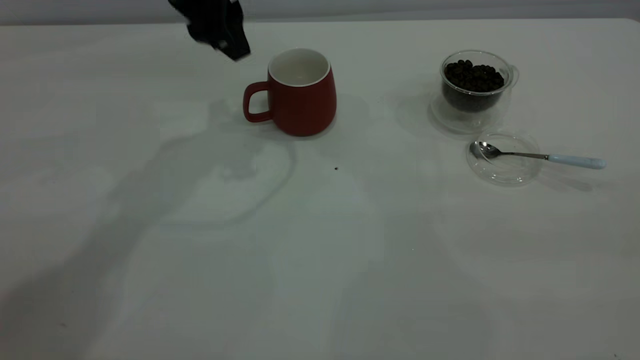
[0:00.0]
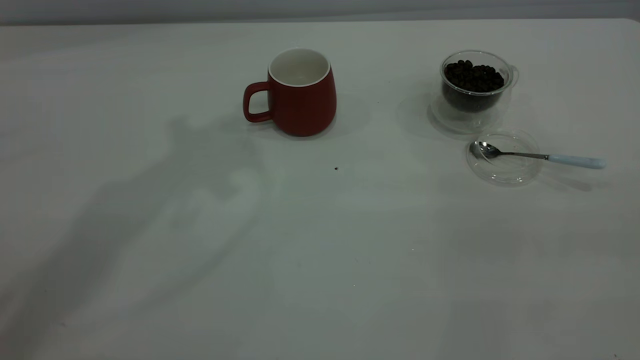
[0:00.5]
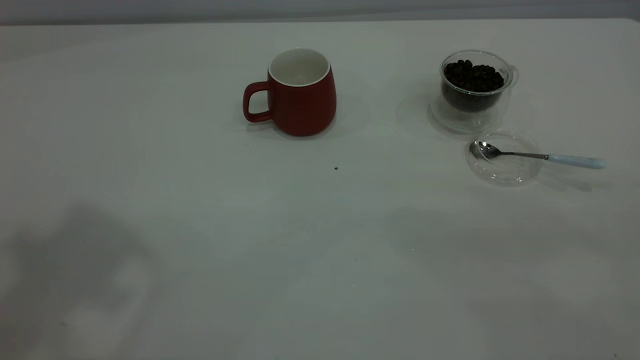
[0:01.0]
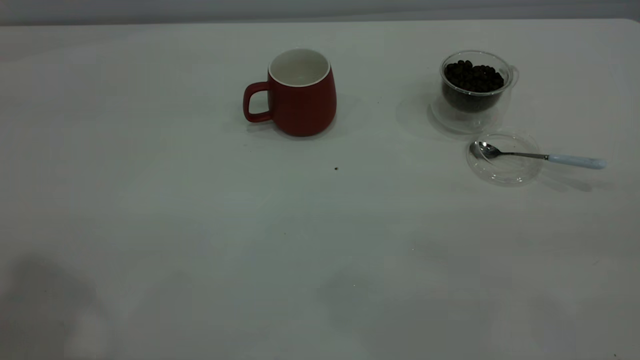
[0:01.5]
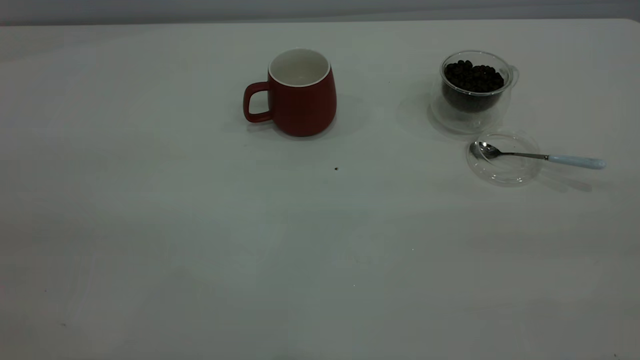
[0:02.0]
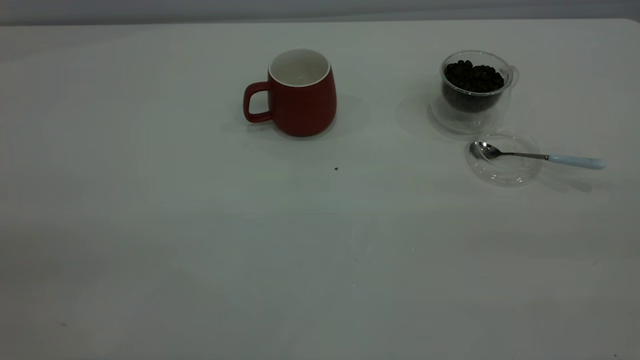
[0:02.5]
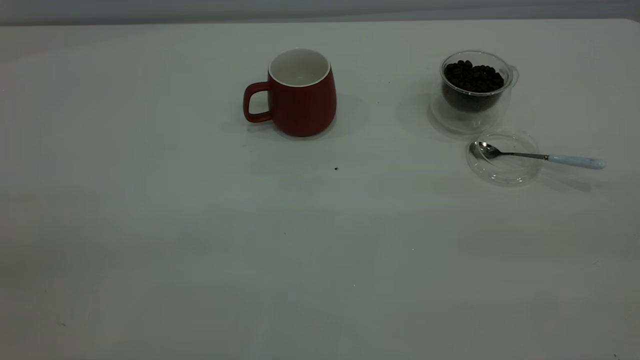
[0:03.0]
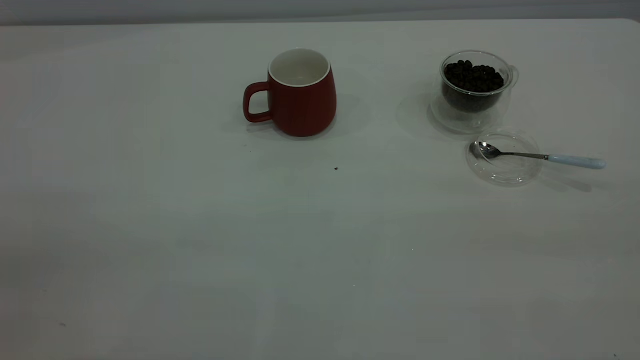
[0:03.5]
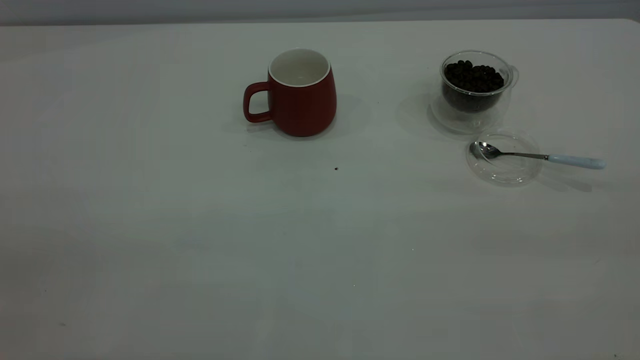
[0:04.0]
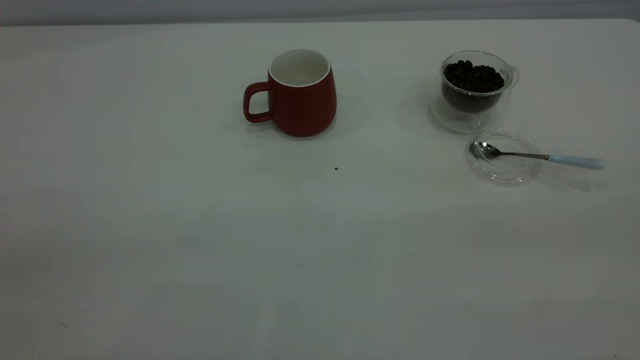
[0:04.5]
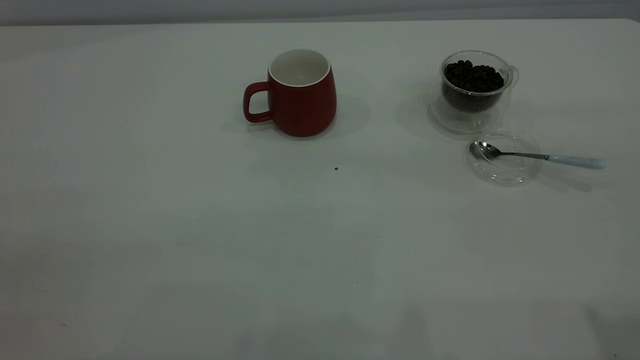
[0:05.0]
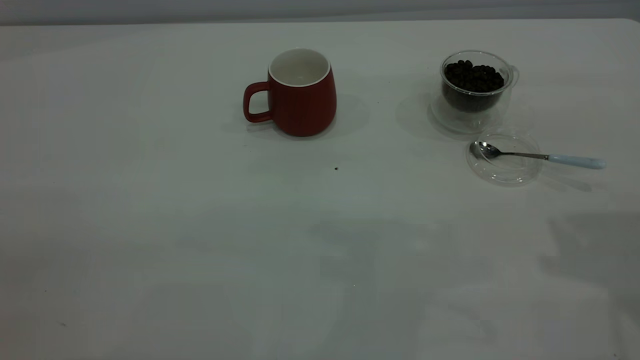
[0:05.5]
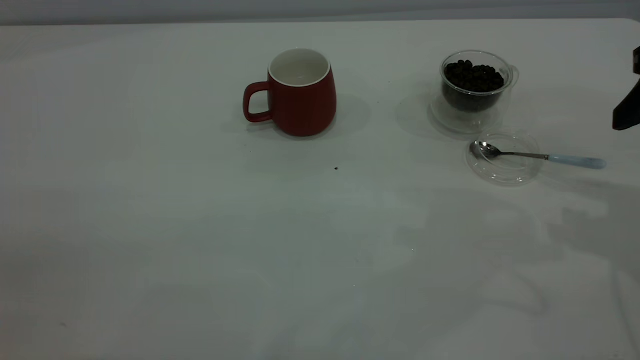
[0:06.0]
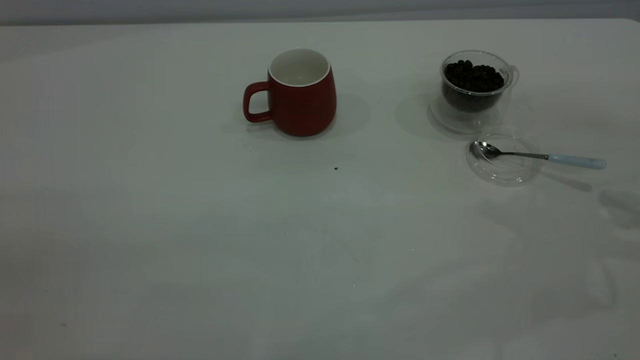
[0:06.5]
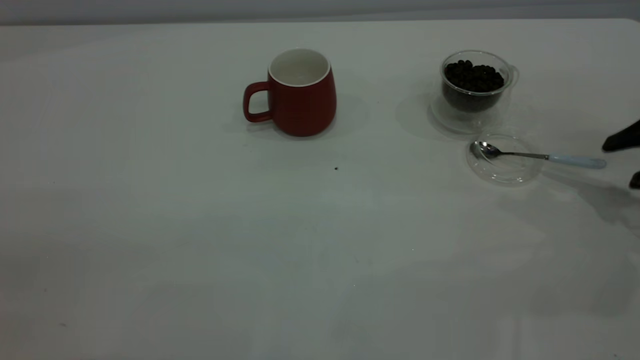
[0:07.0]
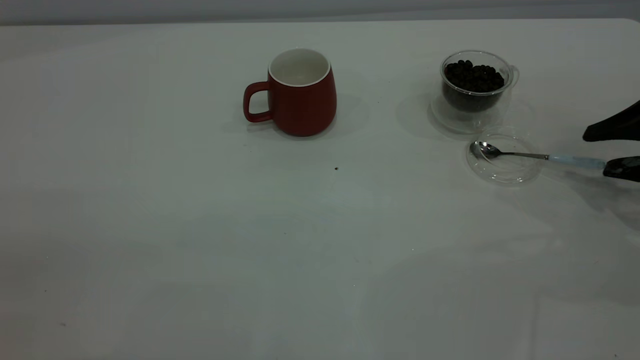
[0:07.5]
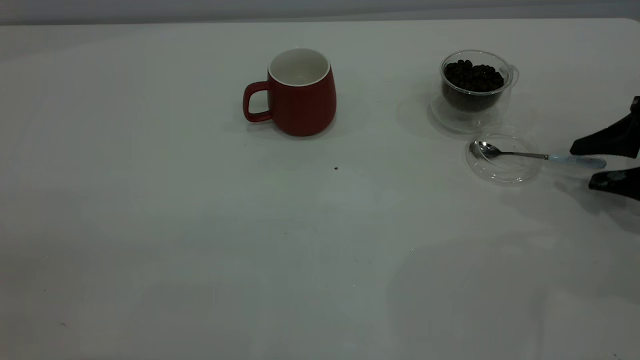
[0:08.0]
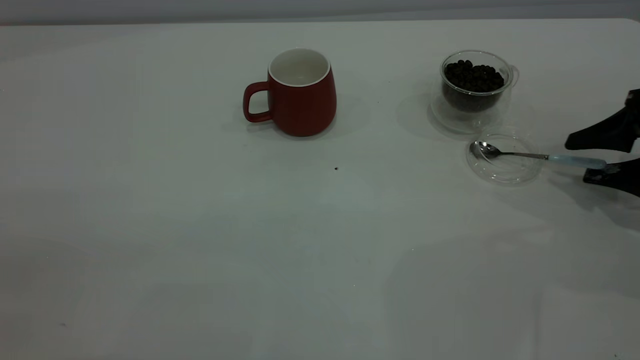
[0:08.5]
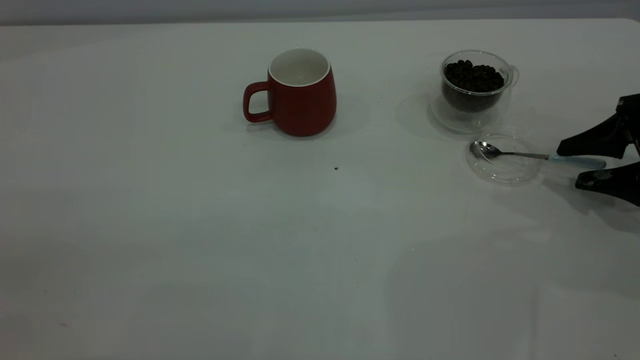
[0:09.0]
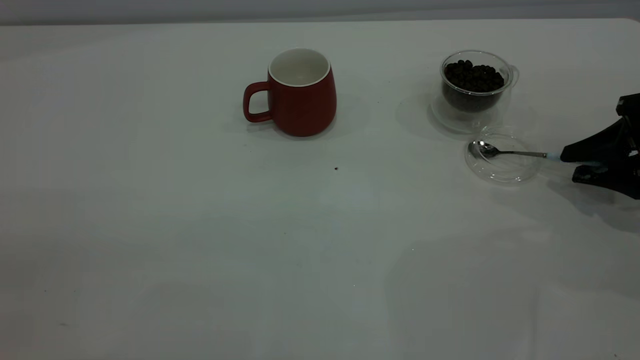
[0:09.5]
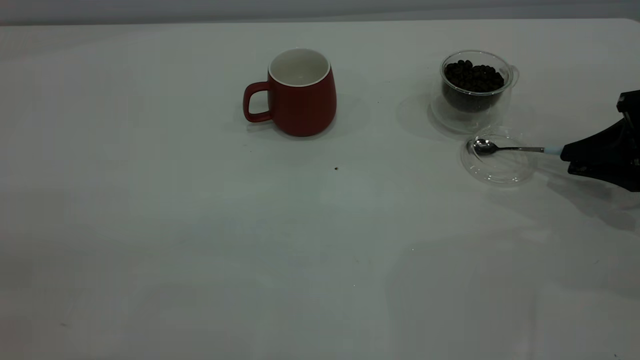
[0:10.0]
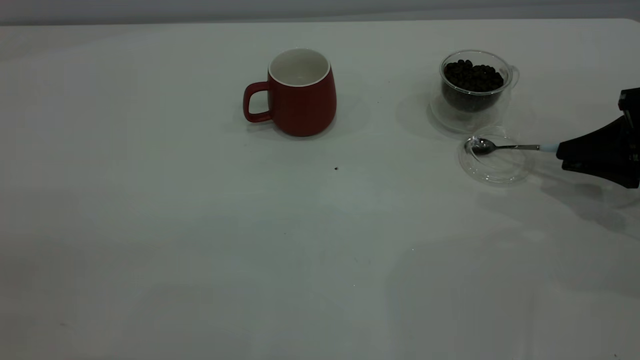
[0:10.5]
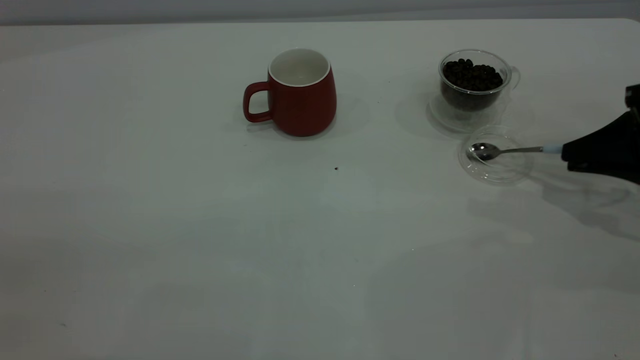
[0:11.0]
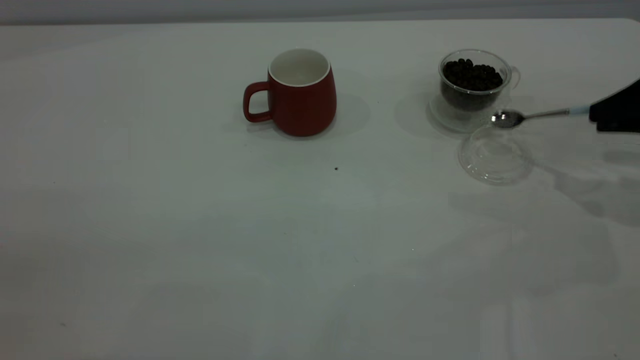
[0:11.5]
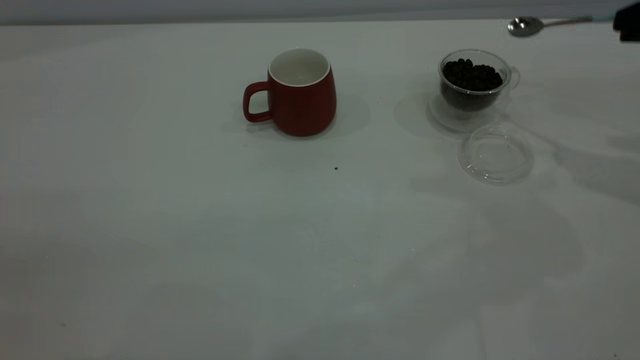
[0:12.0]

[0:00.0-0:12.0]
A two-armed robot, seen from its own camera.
Task of the whole recording: the left gripper place the red cup in the center of the table, the right gripper take the blue spoon from the cup lid and scoop out the coffee beans from the coffee cup and put them into the red cup, the right gripper put the spoon back into the cup lid.
Step, 0:00.0 to 0:11.0: Pick up the spoon.
0:00.0 to 0:02.0: The left gripper heads backward and to the left, covering roughly 40 cm.
0:06.0 to 0:08.0: The right gripper moves downward and to the right, some 15 cm.
0:08.0 to 0:10.0: The right gripper closes.
0:10.0 to 0:12.0: The right gripper goes some 15 cm upward.

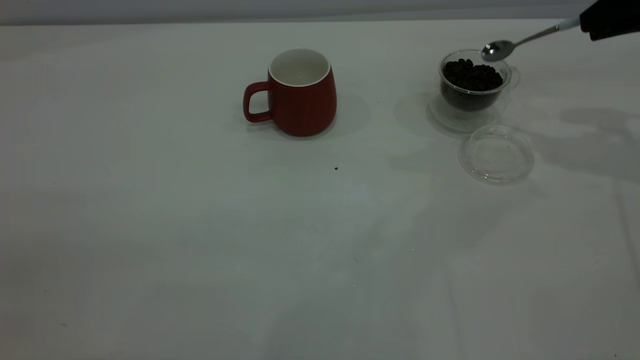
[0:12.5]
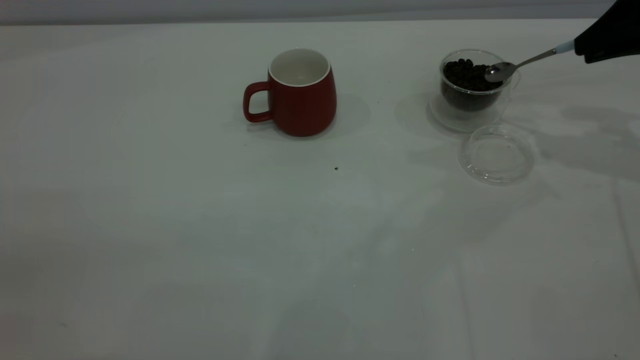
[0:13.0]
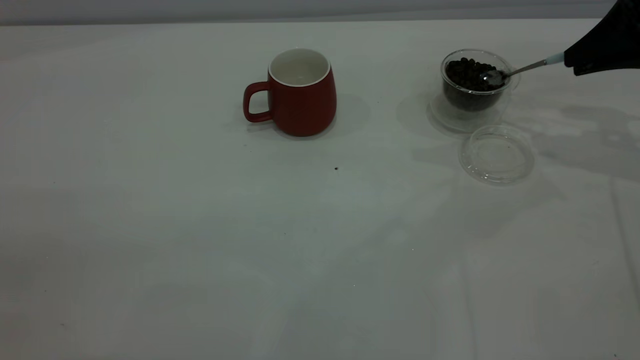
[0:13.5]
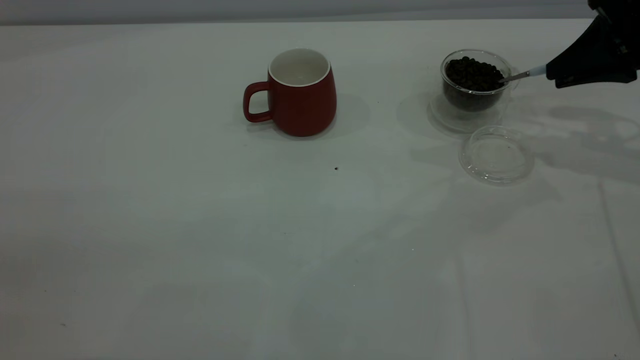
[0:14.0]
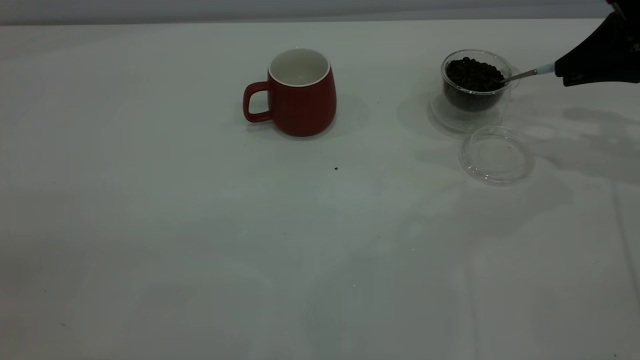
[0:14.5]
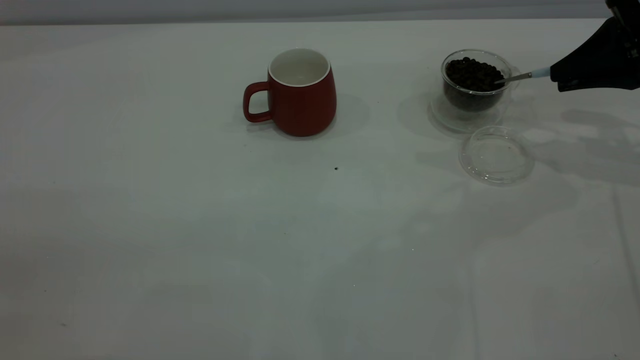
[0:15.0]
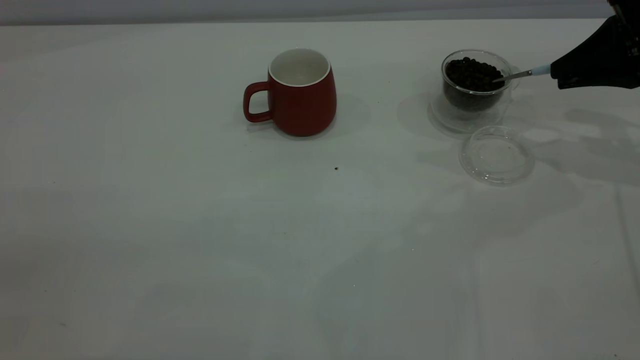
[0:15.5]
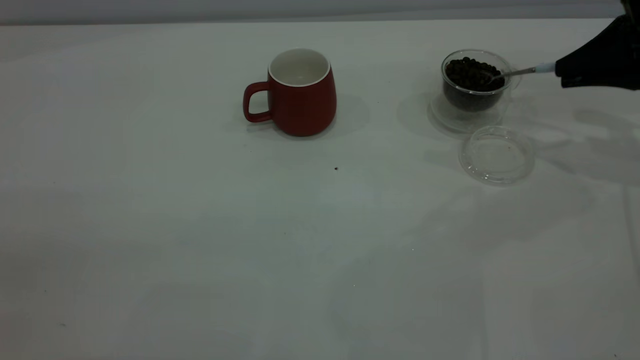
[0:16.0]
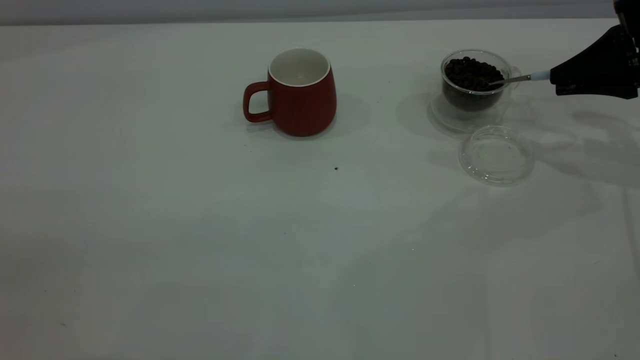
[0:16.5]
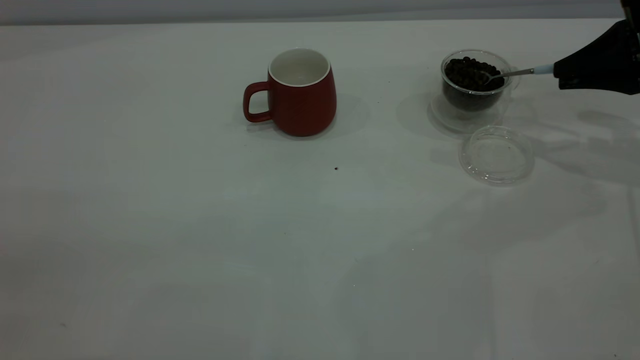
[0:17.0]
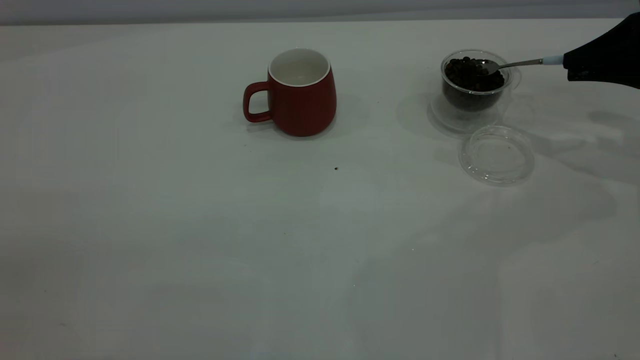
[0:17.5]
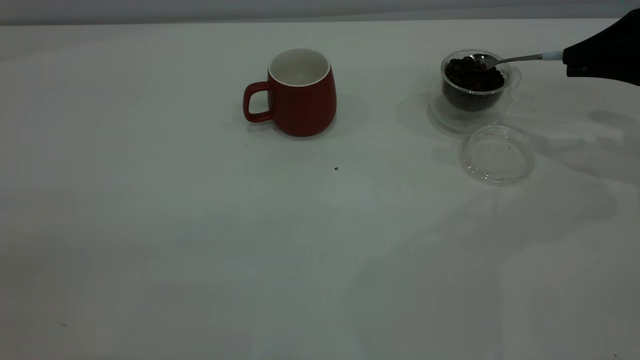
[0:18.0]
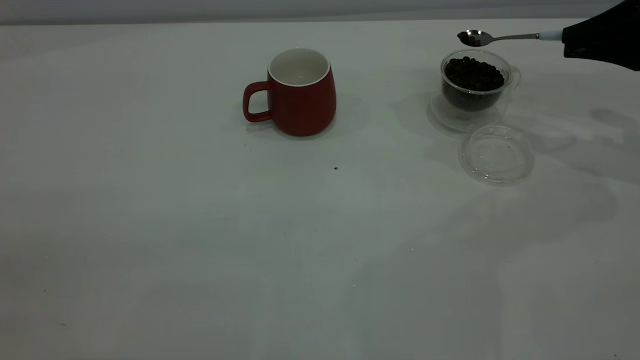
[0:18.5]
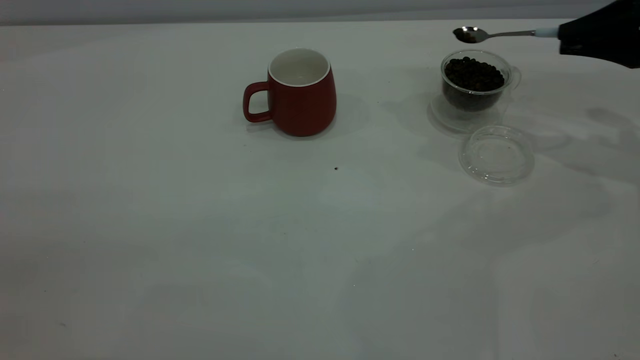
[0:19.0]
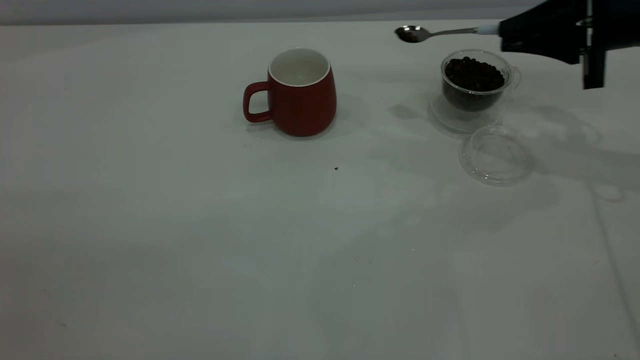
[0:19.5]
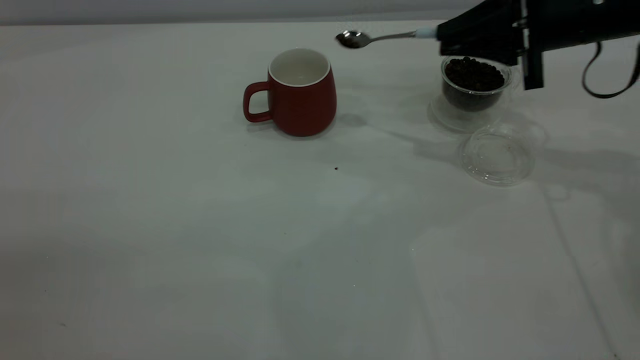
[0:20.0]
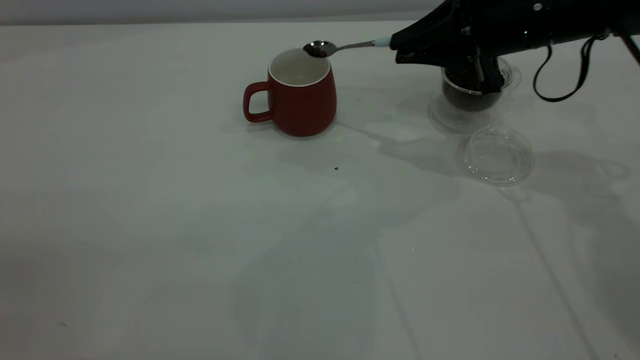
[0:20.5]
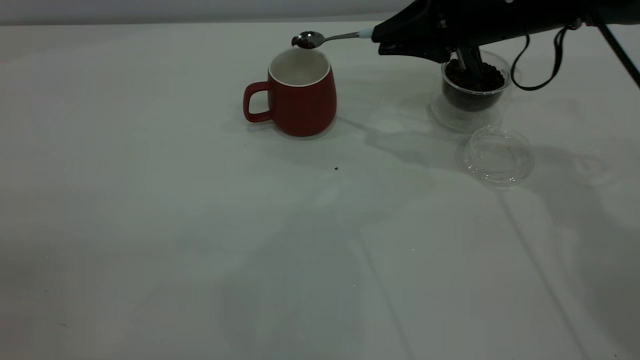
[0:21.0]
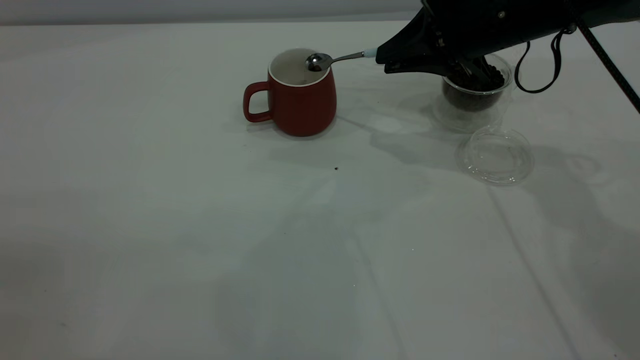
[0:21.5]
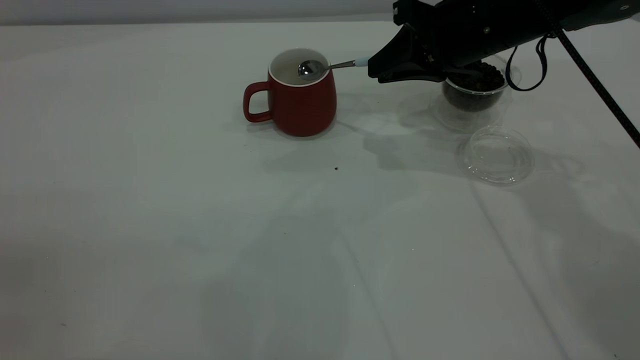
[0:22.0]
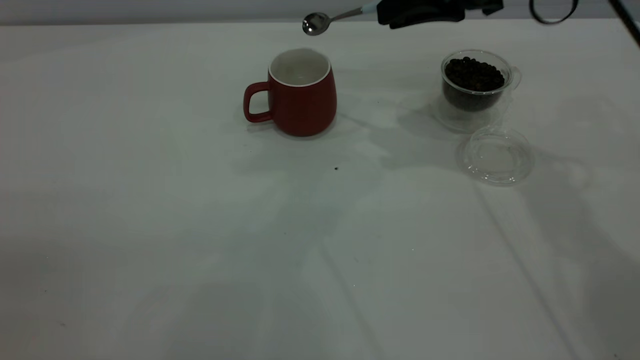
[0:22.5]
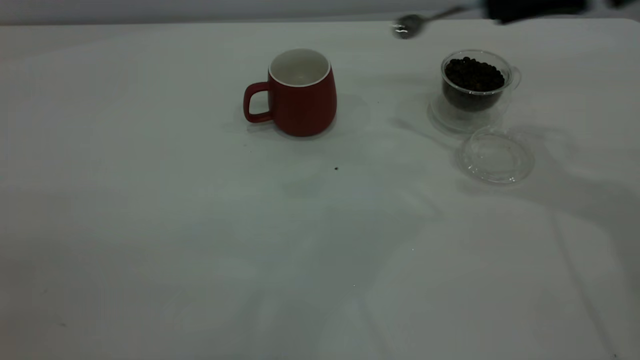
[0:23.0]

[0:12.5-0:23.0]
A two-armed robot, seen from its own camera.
Task of the whole recording: the left gripper place the red cup in the center of the table, the right gripper take the blue spoon from the cup lid and scoop out the coffee beans from the coffee cup and put them into the red cup, the right gripper put the spoon back into the cup lid.
Step, 0:12.5 to 0:22.0: Scoop a spoonful of beans into the cup.
0:12.5 to 0:14.5: The right gripper travels downward by roughly 5 cm.
0:14.5 to 0:16.5: The grippers move only a little.
0:16.5 to 0:19.0: The grippers make only small movements.
0:19.0 to 0:21.0: The right gripper goes roughly 20 cm to the left.
0:21.0 to 0:23.0: The right gripper goes some 15 cm upward, to the right and backward.
